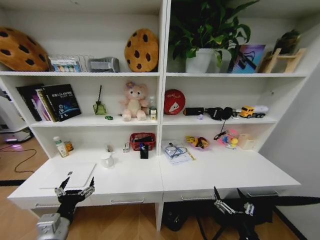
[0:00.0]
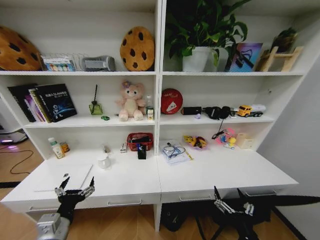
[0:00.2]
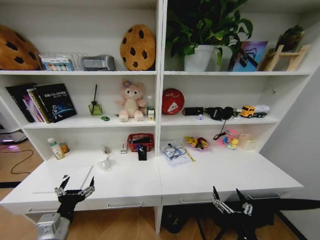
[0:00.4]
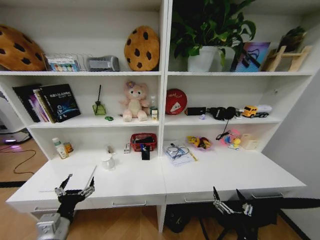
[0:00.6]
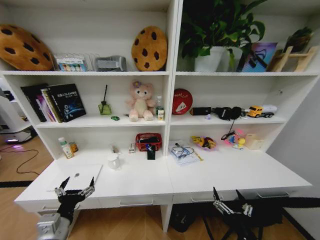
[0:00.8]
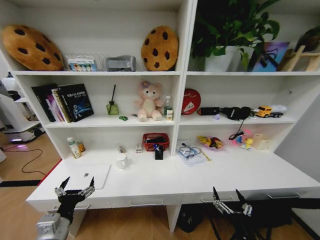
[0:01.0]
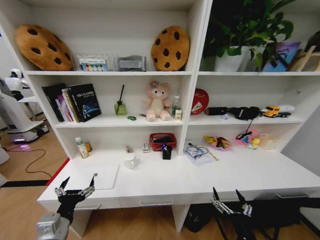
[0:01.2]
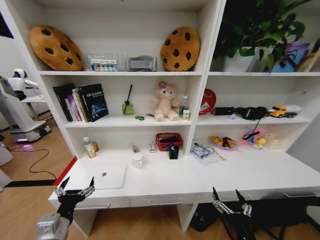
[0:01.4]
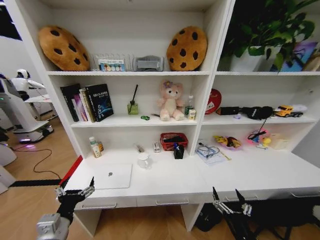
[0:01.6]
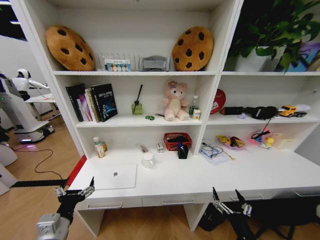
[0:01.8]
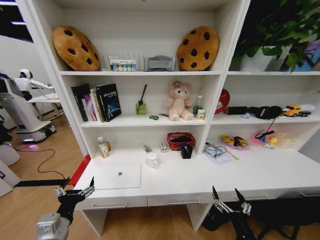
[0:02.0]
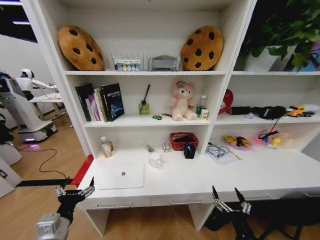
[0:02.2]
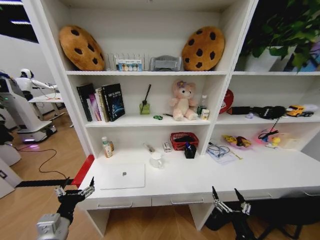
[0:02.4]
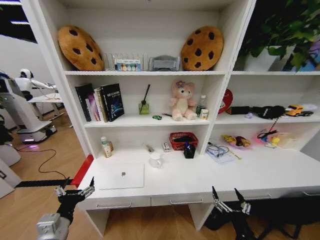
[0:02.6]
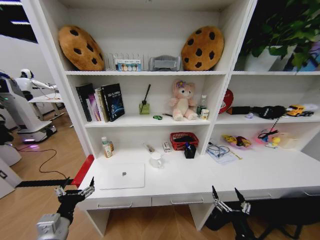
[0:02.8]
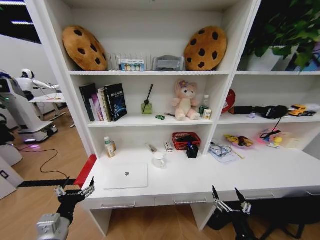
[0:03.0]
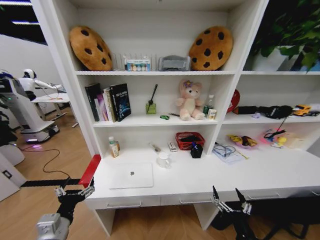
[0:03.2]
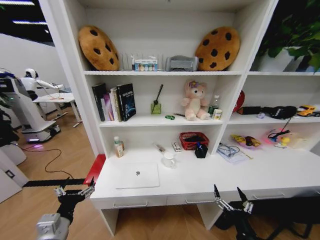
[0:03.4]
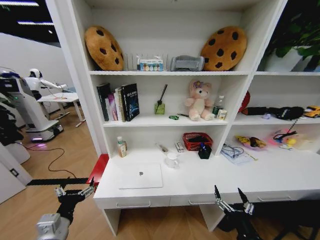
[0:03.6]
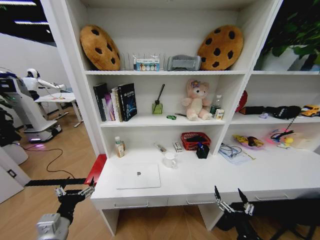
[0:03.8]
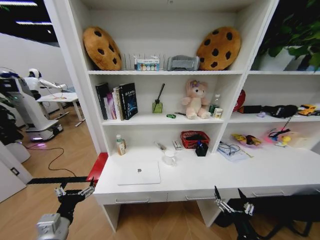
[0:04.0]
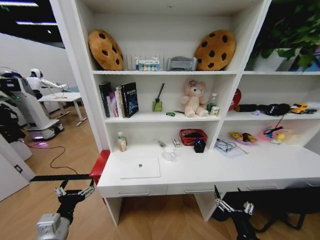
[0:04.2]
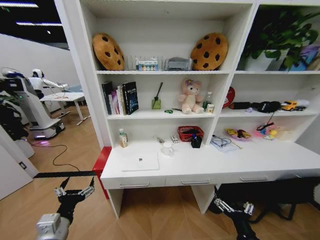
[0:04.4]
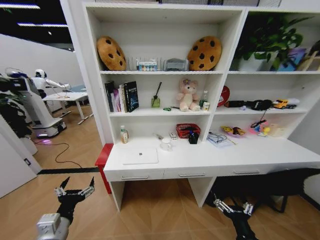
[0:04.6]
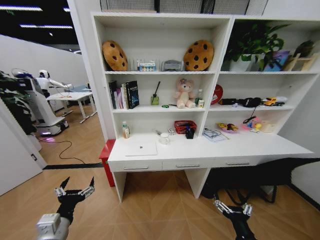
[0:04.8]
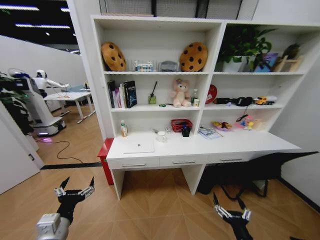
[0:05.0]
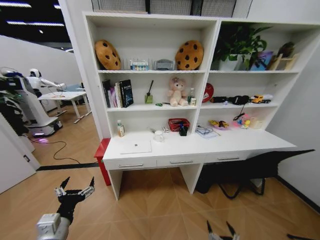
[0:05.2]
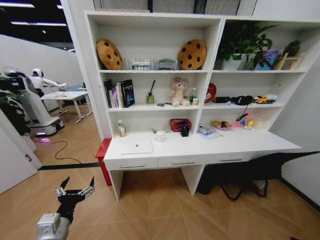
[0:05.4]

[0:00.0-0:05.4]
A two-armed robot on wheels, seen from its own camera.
Task of the whole recording: Organize the objects on the table.
0:04.0 to 0:05.4: The right gripper is displaced downward and backward by some 25 cm.

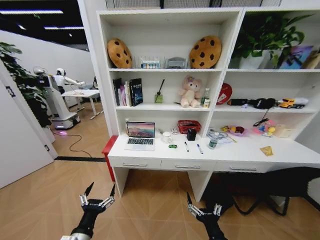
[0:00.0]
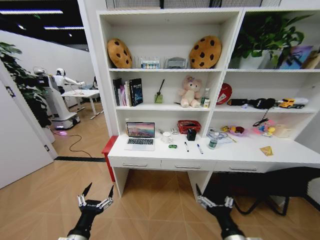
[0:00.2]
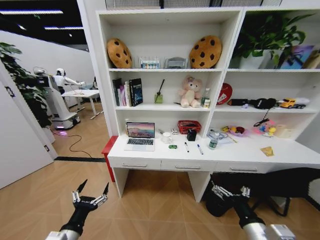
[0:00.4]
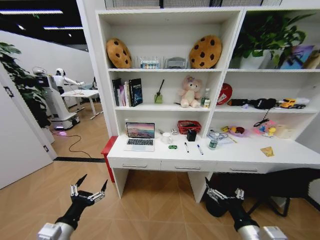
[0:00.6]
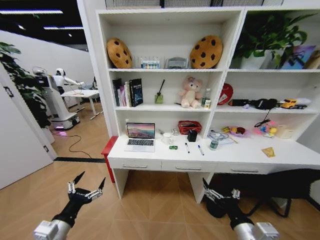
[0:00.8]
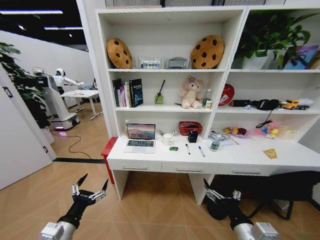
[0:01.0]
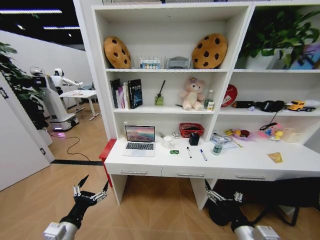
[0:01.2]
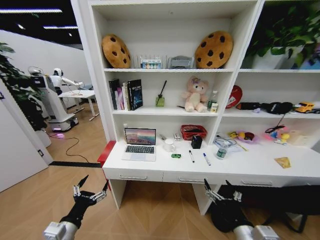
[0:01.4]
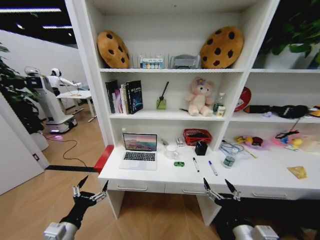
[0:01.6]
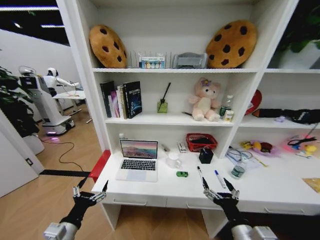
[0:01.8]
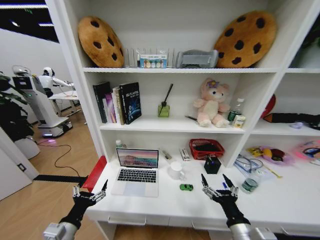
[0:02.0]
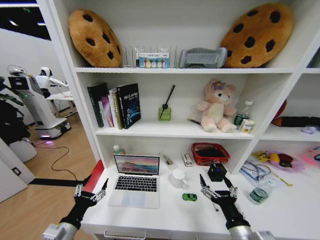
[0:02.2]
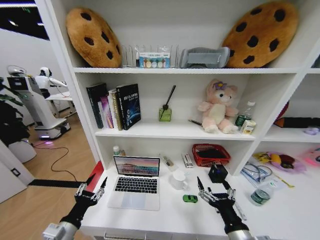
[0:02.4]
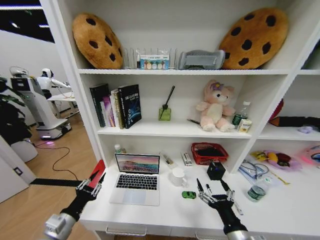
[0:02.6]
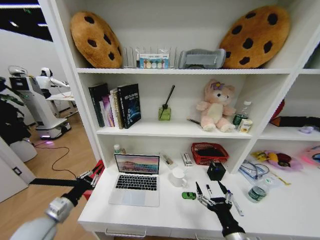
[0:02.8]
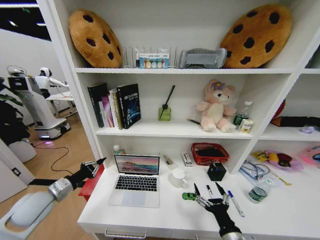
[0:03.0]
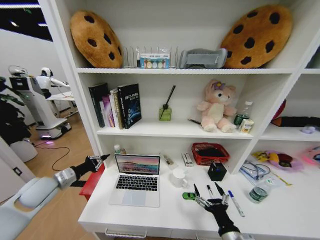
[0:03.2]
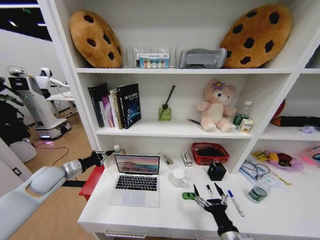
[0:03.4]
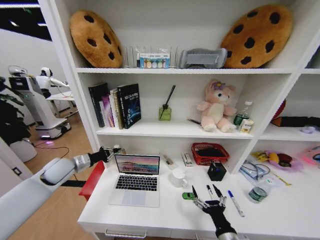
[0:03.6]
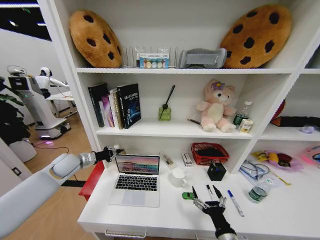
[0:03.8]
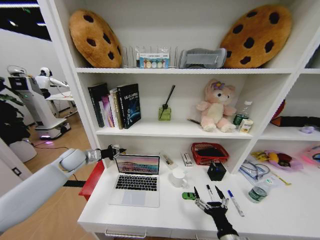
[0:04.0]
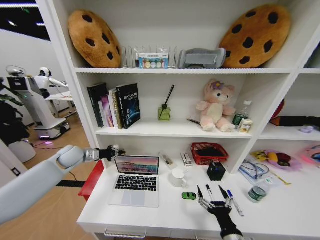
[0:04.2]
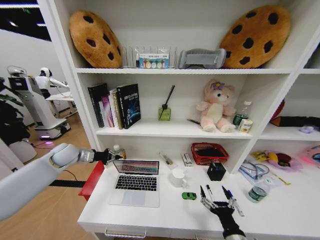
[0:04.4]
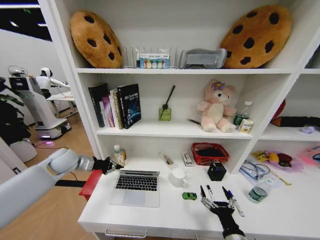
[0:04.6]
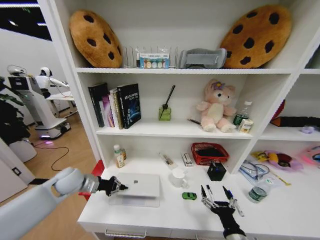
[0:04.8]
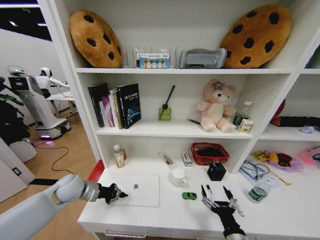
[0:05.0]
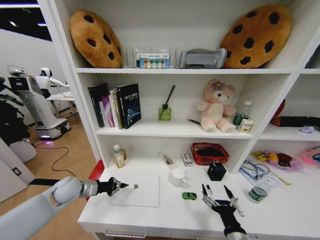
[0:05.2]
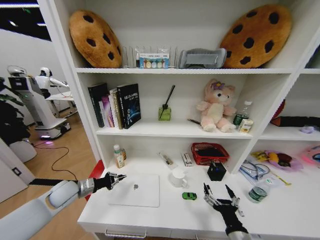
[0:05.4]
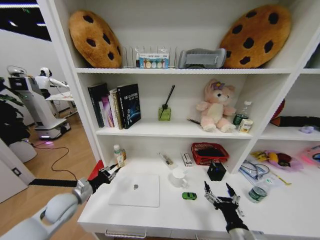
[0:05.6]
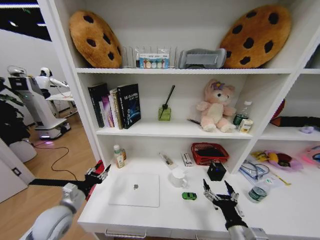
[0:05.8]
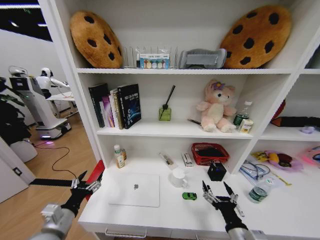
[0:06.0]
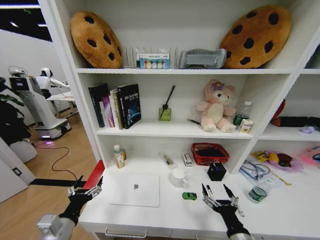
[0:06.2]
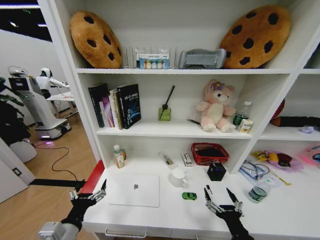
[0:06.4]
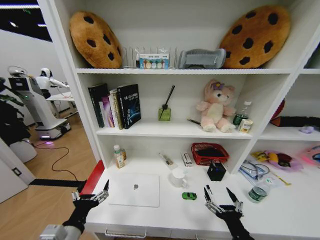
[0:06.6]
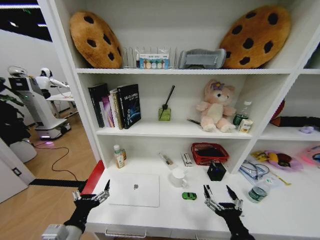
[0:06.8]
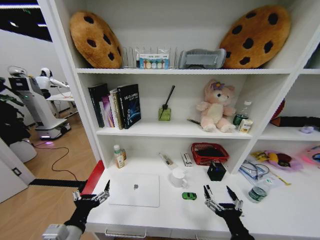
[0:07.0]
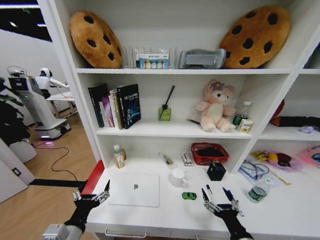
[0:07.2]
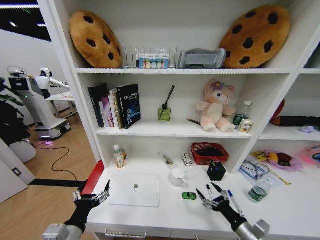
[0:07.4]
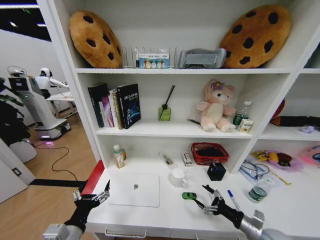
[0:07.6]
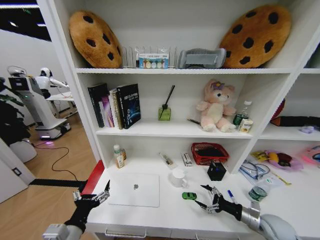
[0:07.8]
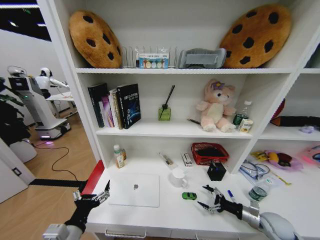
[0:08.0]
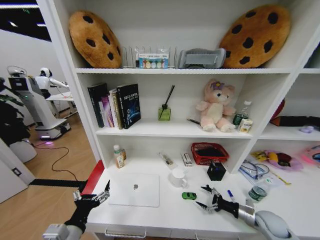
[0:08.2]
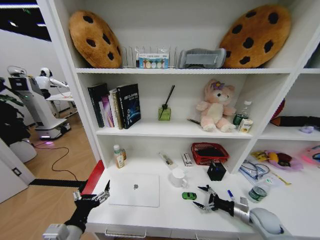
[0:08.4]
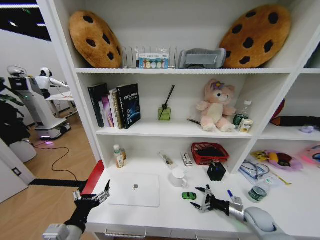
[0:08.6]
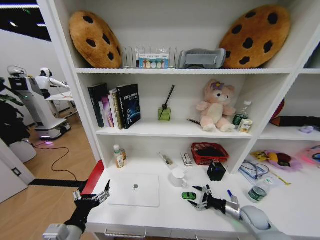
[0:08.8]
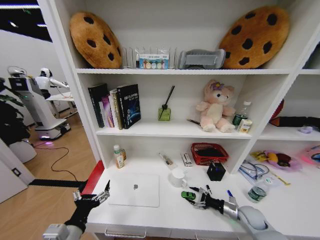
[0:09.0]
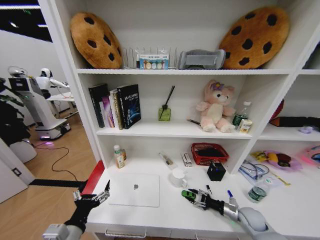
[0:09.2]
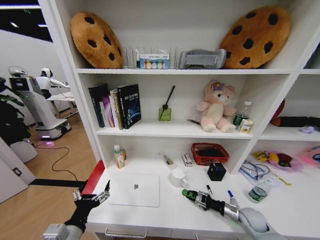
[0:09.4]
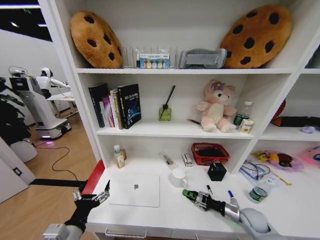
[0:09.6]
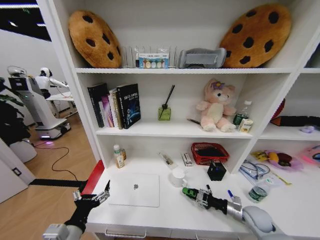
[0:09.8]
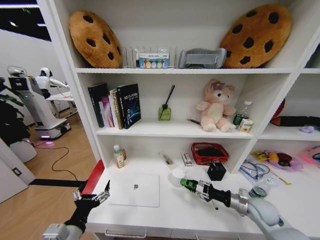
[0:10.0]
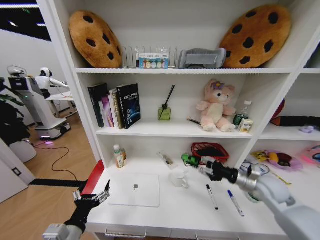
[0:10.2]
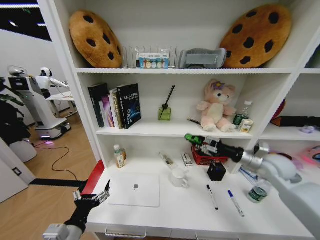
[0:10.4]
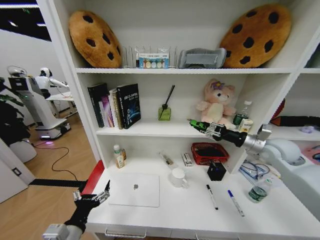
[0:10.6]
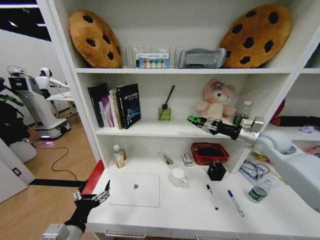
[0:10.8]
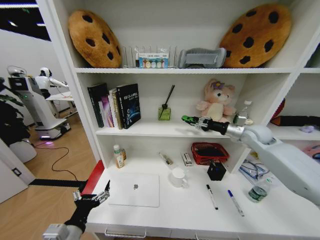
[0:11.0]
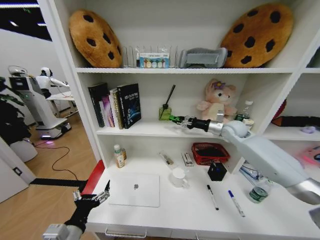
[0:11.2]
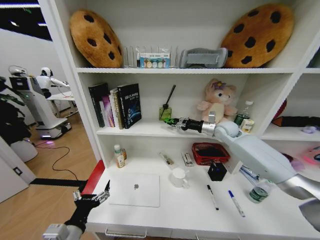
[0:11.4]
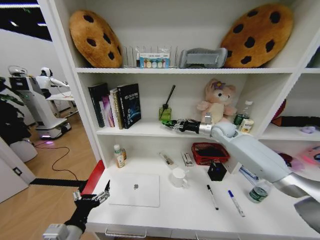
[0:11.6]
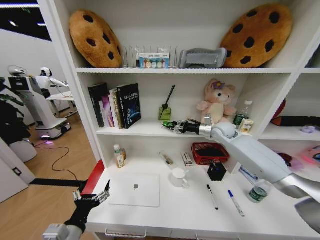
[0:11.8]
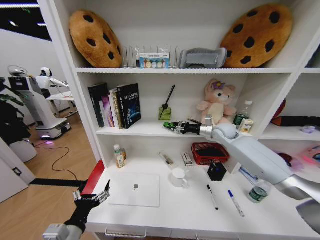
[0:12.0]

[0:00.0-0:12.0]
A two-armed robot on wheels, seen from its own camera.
Task of the whole recording: Organize the objects on the table.
0:01.6 to 0:03.0: The left gripper moves forward and to the left, approximately 15 cm, and closes up.
0:03.0 to 0:04.4: The left gripper is displaced forward by about 20 cm.
0:04.4 to 0:06.0: The left gripper is displaced backward by about 25 cm, and opens.
0:06.0 to 0:07.6: The left gripper travels to the right and backward by about 10 cm, while the right gripper heads to the right and forward, covering approximately 15 cm.
0:07.6 to 0:09.0: The right gripper shifts approximately 10 cm forward and downward.
0:09.0 to 0:10.4: The right gripper goes about 30 cm upward, and closes up.
0:10.4 to 0:12.0: The right gripper heads forward and to the left, covering about 20 cm.

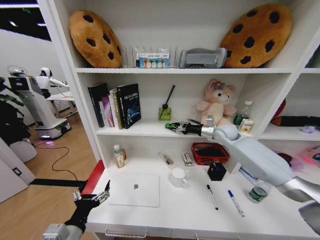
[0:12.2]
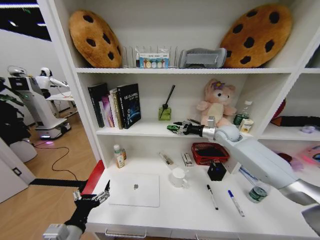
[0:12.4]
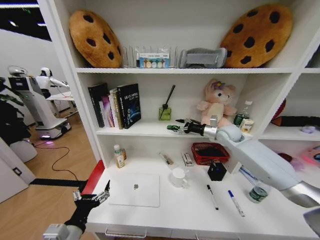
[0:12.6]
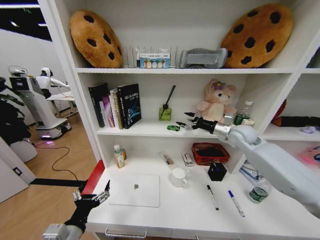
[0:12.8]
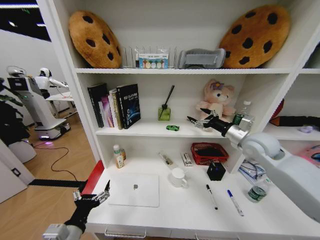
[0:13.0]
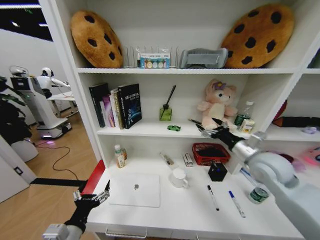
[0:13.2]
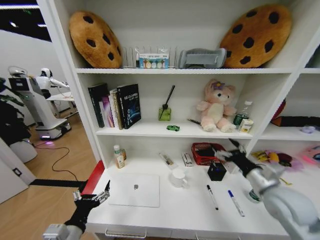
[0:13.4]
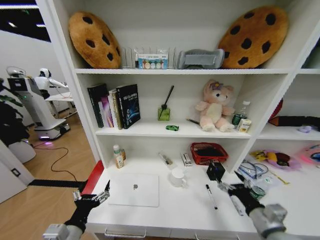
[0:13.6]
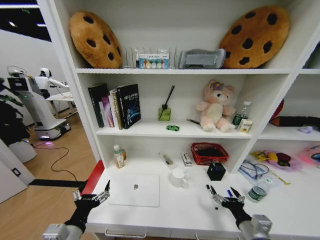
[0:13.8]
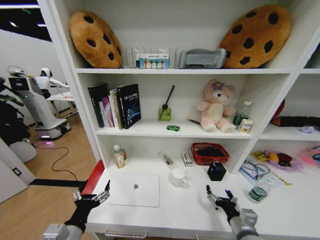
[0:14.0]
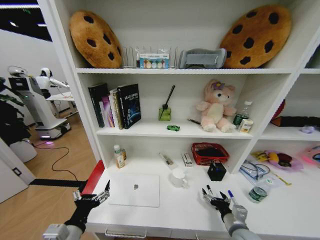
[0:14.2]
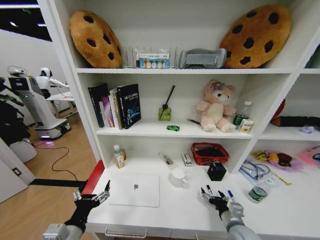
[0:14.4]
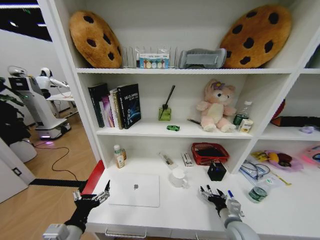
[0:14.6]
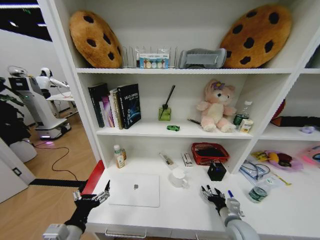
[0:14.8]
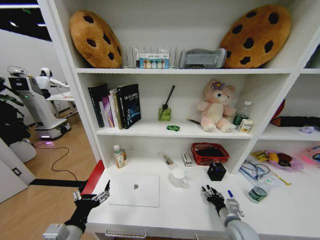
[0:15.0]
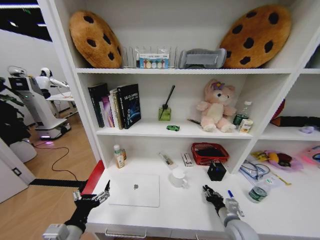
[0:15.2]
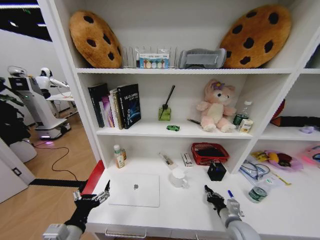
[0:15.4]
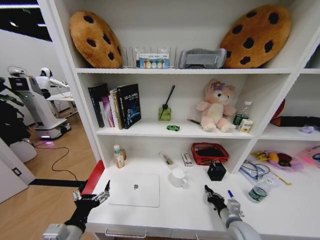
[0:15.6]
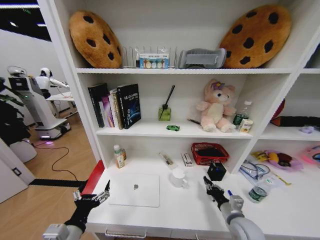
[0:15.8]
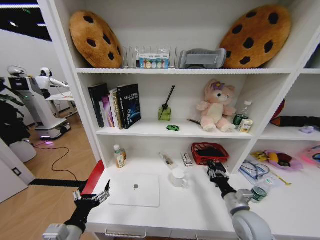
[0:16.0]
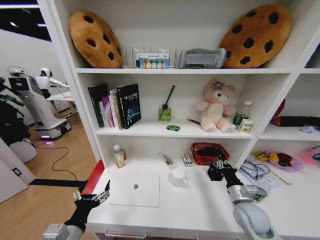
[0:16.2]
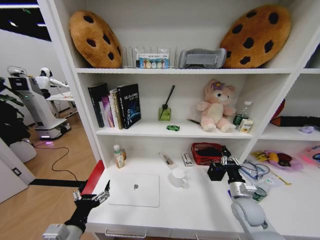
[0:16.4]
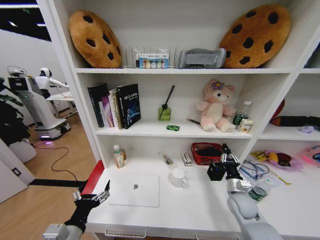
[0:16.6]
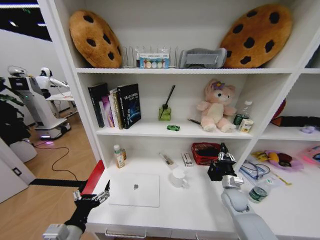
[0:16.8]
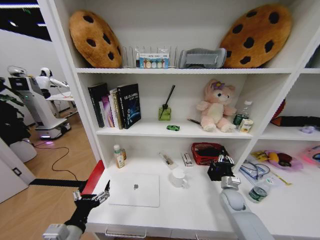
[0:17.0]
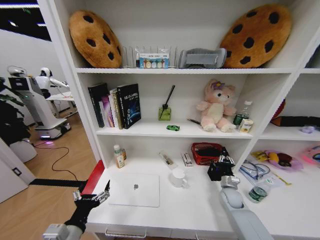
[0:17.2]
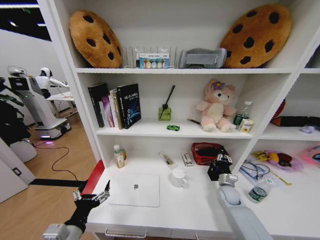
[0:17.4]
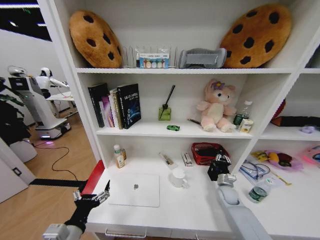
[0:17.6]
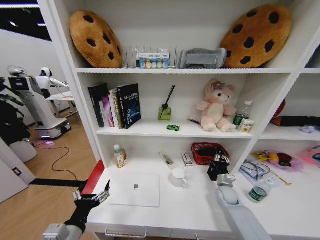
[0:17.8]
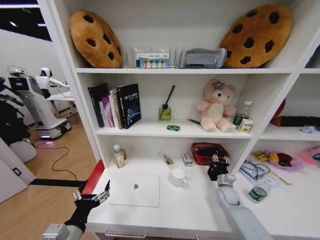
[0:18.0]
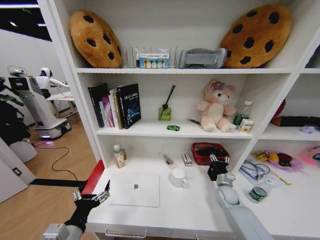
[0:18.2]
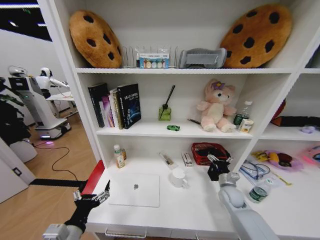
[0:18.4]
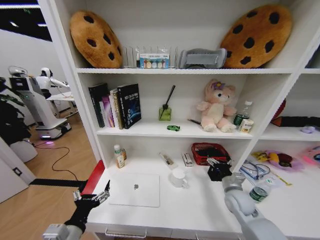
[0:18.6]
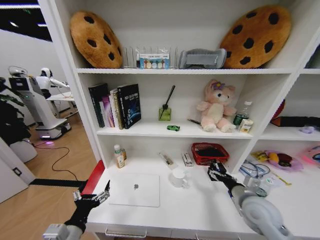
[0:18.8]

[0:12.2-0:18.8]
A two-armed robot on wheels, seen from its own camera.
Task of the whole recording: Organize the objects on the table.
0:12.2 to 0:13.8: The right gripper goes approximately 40 cm backward and downward, and opens its fingers.
0:13.8 to 0:15.4: The right gripper goes roughly 10 cm downward and forward, and closes up.
0:15.4 to 0:17.2: The right gripper is displaced forward by some 15 cm.
0:17.2 to 0:18.8: The right gripper is displaced upward and backward by approximately 20 cm, and opens.
